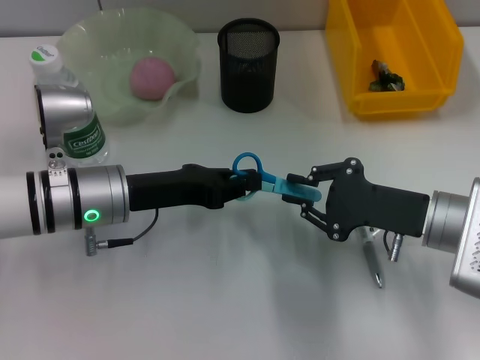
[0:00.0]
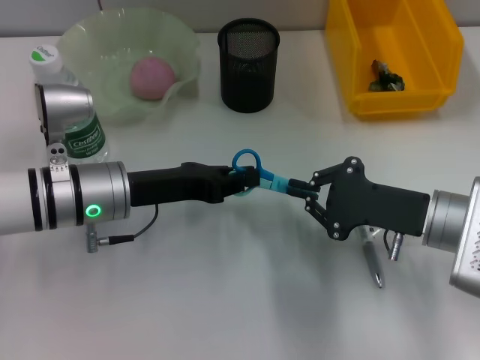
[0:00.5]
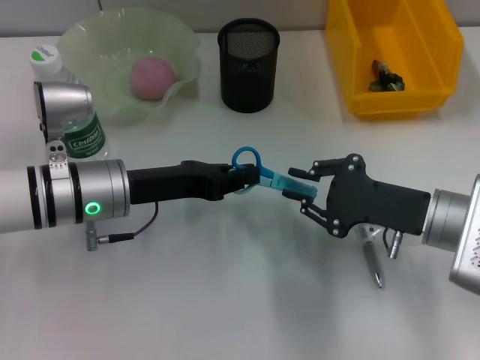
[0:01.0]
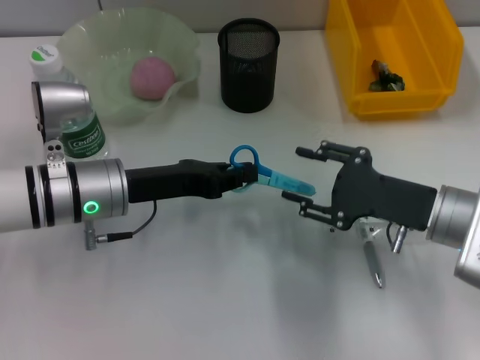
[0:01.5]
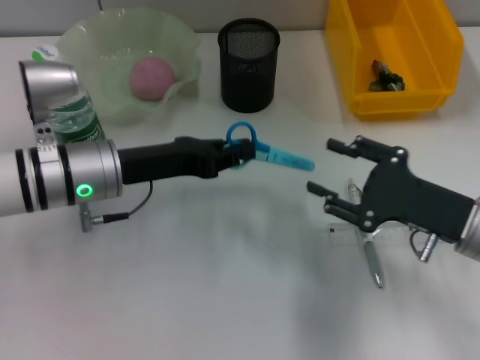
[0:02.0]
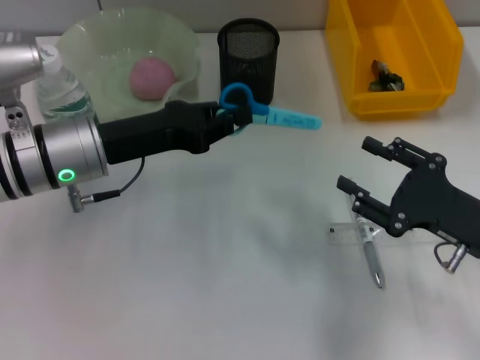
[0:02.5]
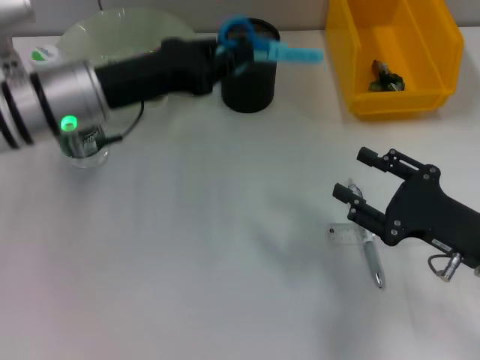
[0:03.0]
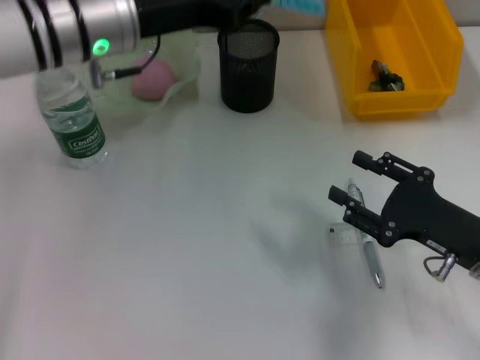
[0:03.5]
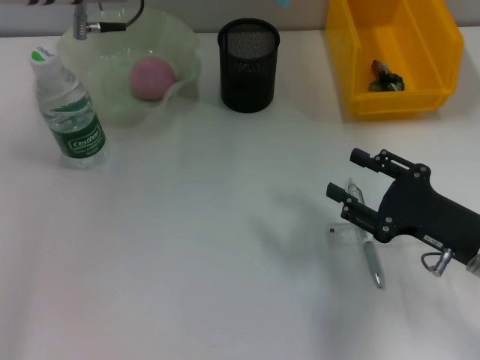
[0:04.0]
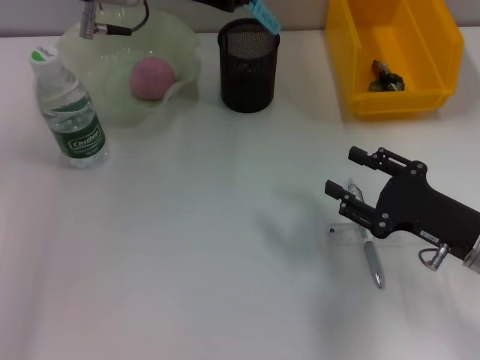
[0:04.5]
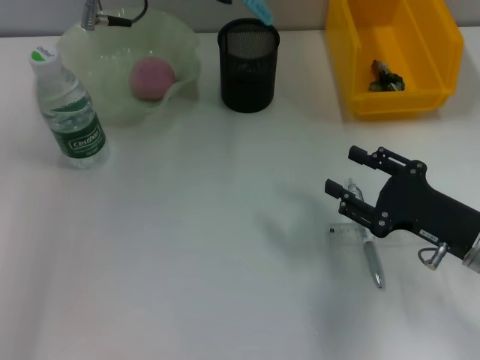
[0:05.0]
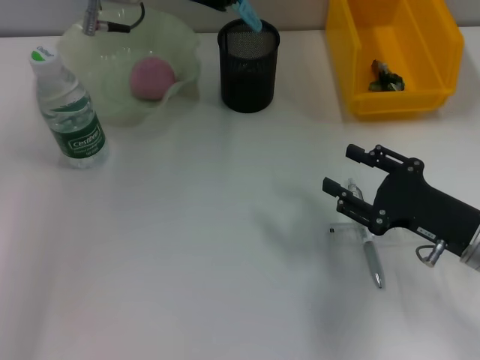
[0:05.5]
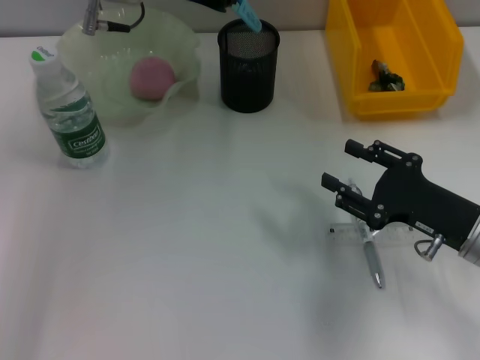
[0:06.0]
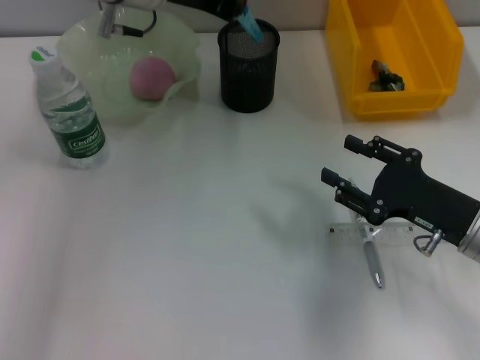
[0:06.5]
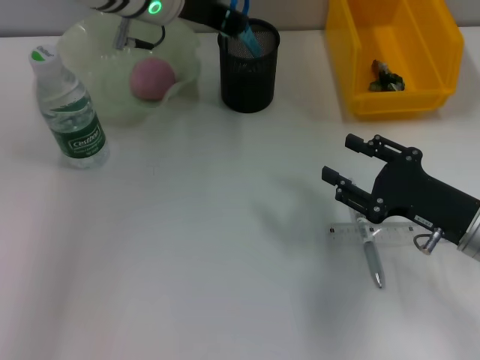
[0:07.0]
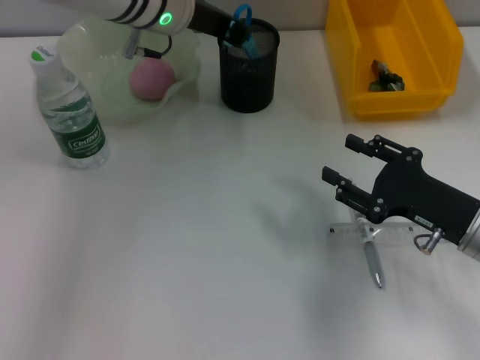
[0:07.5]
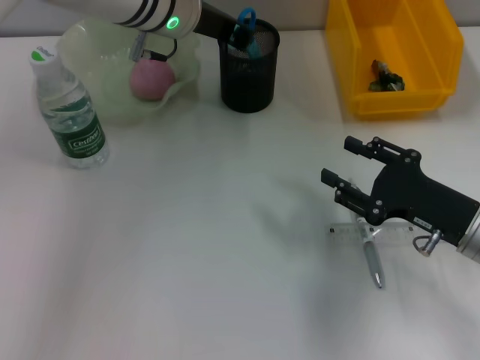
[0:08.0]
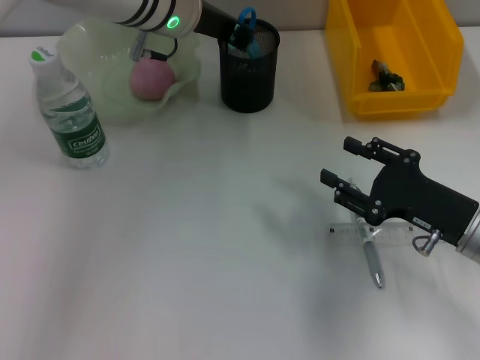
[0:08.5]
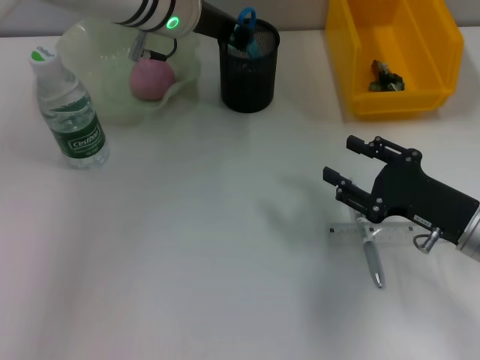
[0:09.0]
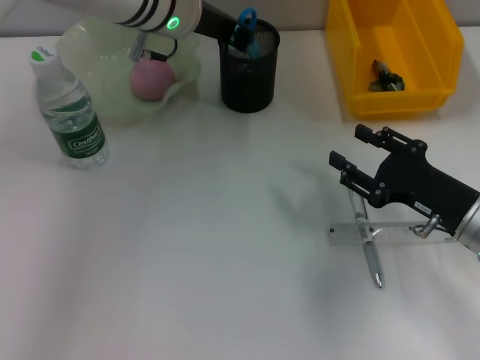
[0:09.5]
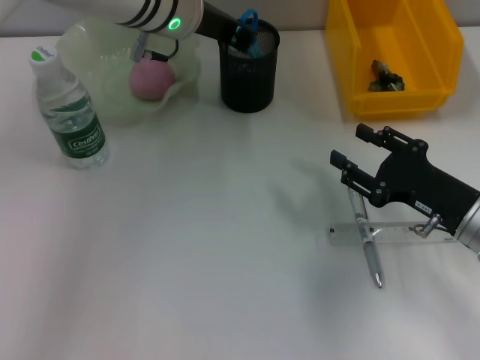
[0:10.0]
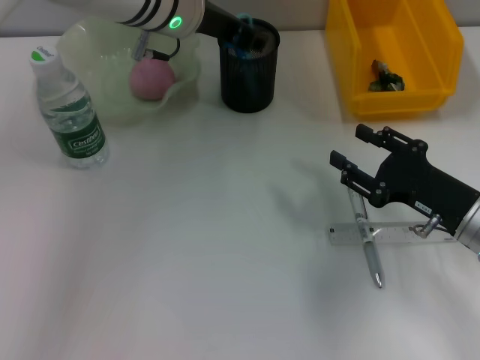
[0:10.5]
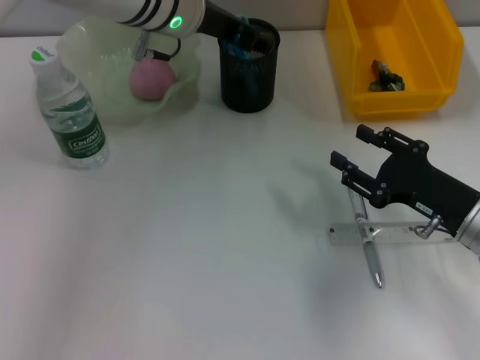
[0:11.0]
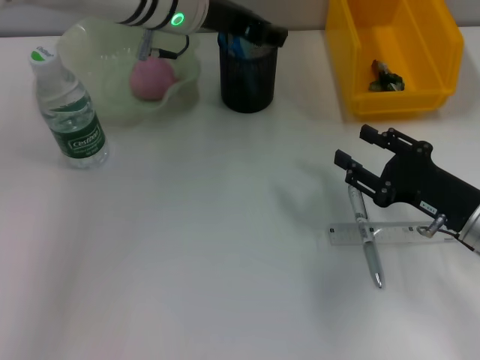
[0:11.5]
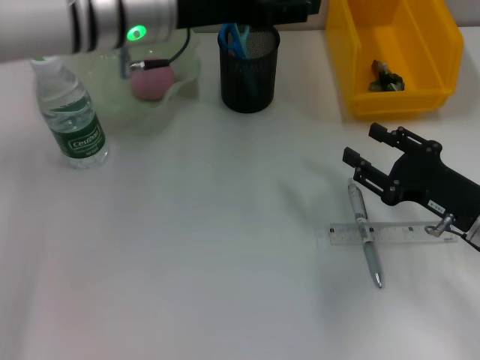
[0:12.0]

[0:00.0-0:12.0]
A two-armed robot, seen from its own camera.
Step, 1.0 to 11.0 s: Place the blue scissors into the pen holder with the left hand.
0.0 to 2.0 s: The right gripper opens up.
2.0 to 4.0 s: The left gripper shifts roughly 20 cm upward and forward.
4.0 to 6.0 s: The grippers stay close to where they were, moving slightly.
6.0 to 8.0 s: The left gripper changes place by some 5 cm.
8.0 to 10.0 s: The grippers make only small movements.
10.0 to 12.0 s: The left gripper ends up approximately 5 cm from where it was, and opens up.

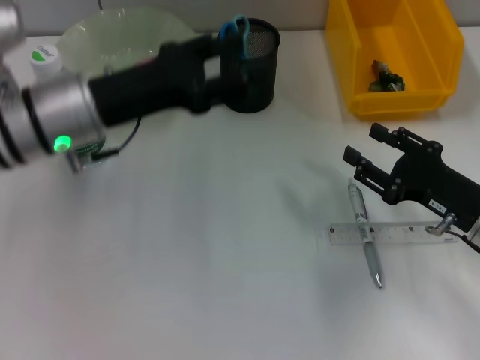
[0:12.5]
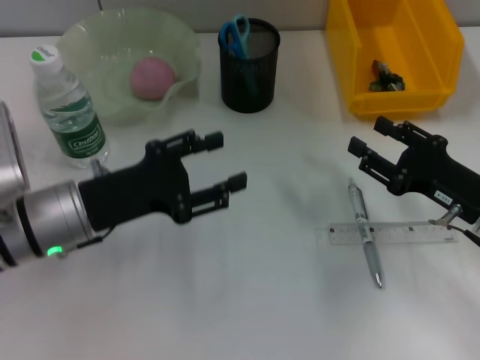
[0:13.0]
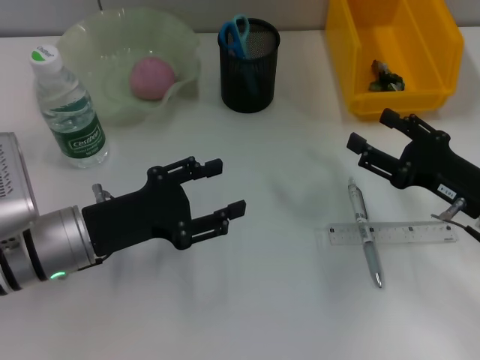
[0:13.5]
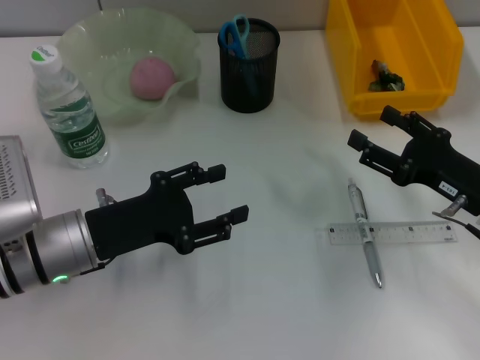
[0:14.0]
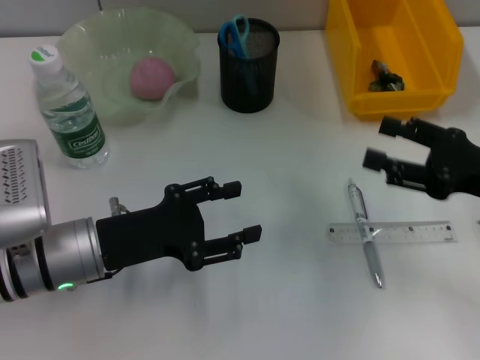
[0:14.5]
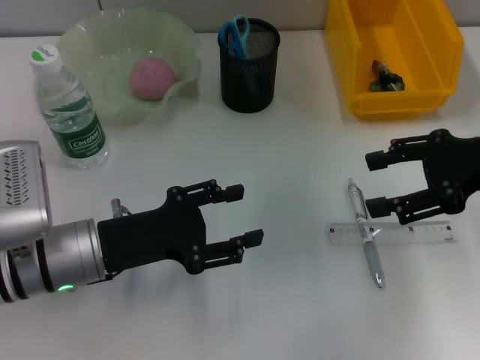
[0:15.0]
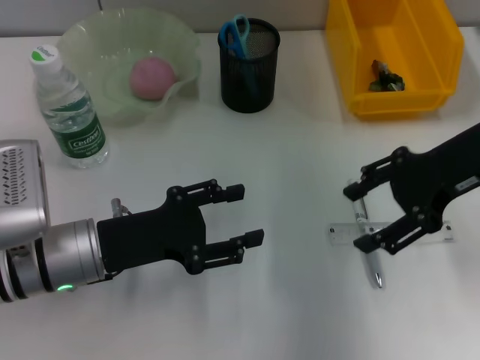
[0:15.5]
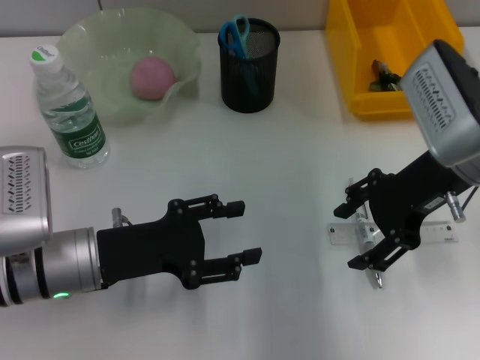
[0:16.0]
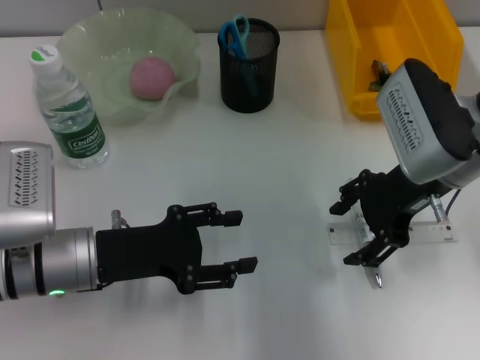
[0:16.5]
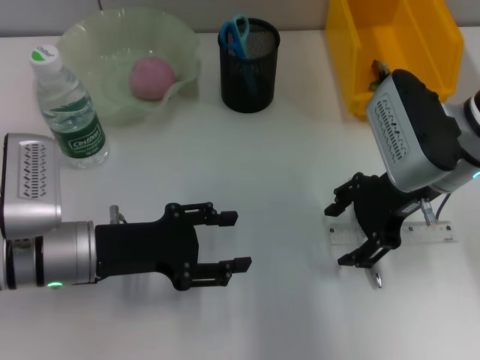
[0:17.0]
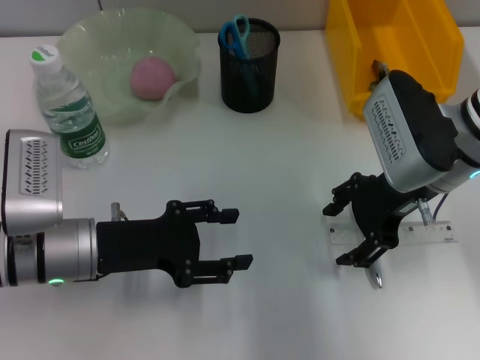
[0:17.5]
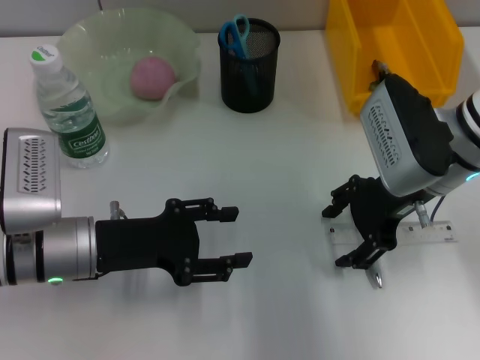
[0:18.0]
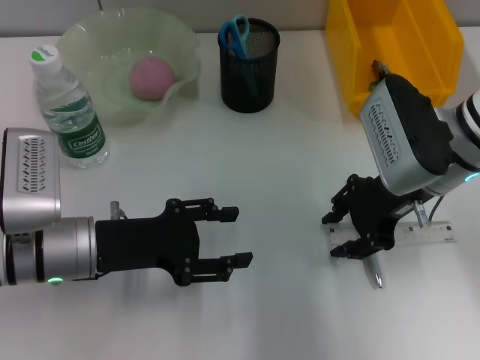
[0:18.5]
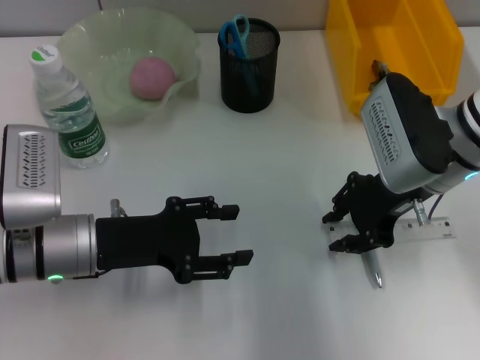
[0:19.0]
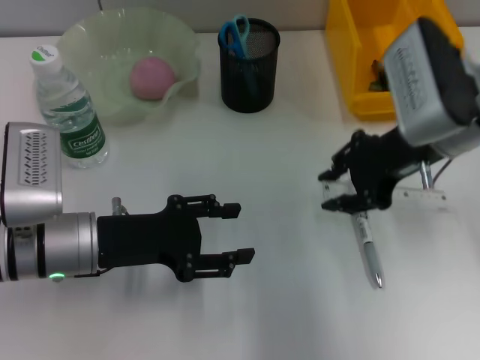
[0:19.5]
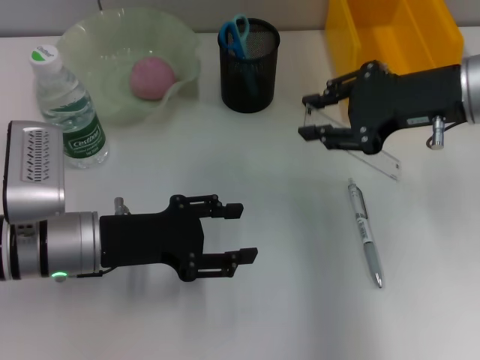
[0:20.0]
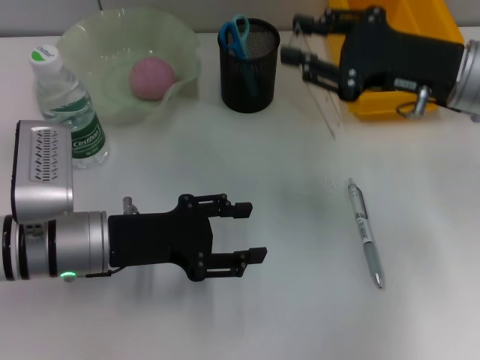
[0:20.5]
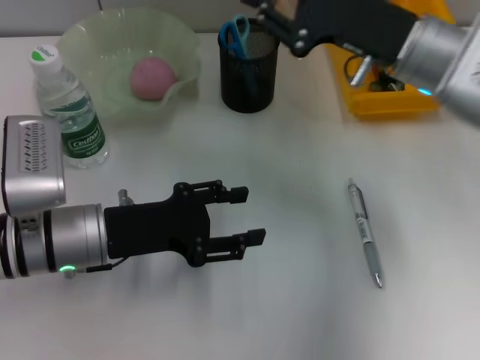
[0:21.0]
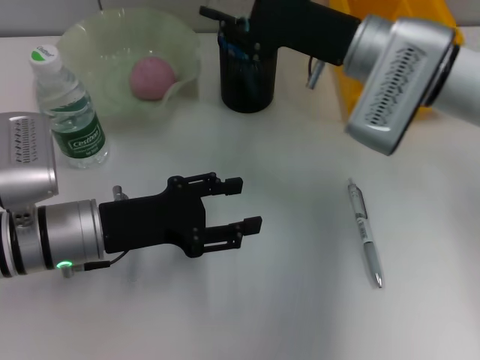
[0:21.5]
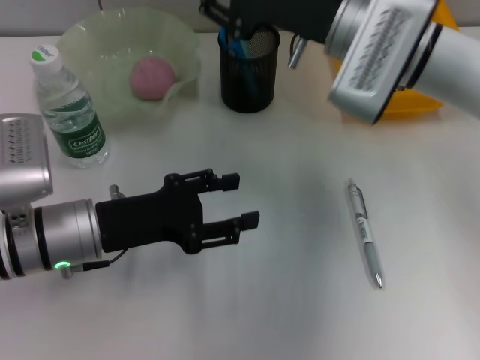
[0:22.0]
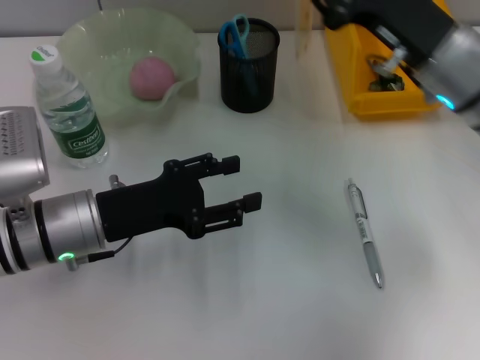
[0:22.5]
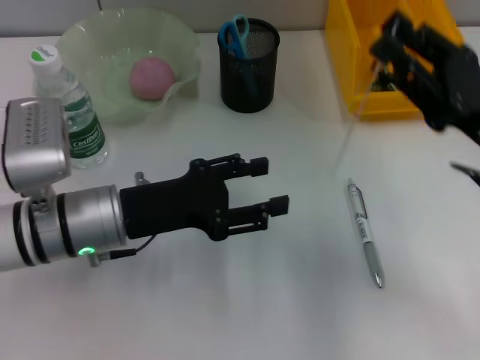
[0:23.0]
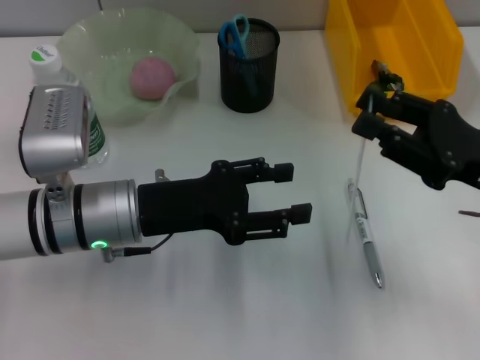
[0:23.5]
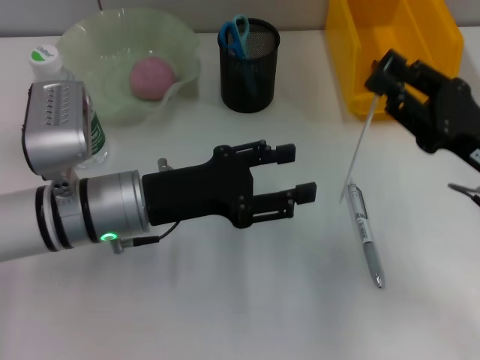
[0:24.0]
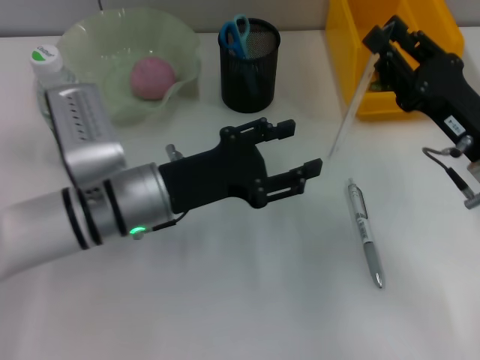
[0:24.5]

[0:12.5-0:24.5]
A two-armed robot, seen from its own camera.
Step, 12.5 to 18.5 s: Grab the ruler with the right hand.
12.5 to 14.5 s: The right gripper goes roughly 5 cm upward, while the left gripper shifts roughly 10 cm downward and backward.
14.5 to 16.5 s: The right gripper goes approximately 15 cm to the left and forward.
16.5 to 18.5 s: The grippers stay close to where they were, moving slightly.
18.5 to 20.5 s: The right gripper ends up about 5 cm from where it was.
20.5 to 22.5 s: The right gripper reaches approximately 10 cm to the left, then returns.
22.5 to 24.5 s: The right gripper heads backward and downward, covering some 10 cm. Meanwhile the left gripper heads to the right, covering approximately 5 cm.

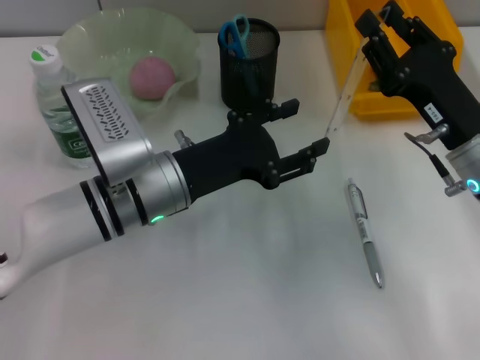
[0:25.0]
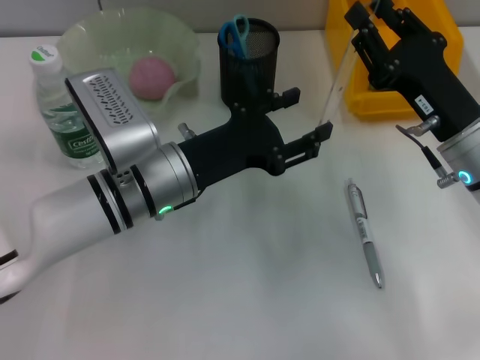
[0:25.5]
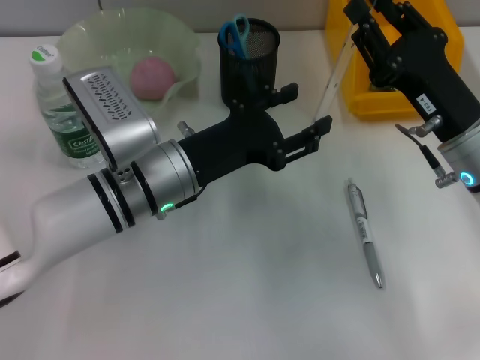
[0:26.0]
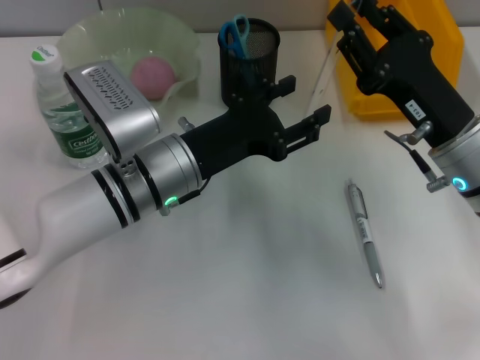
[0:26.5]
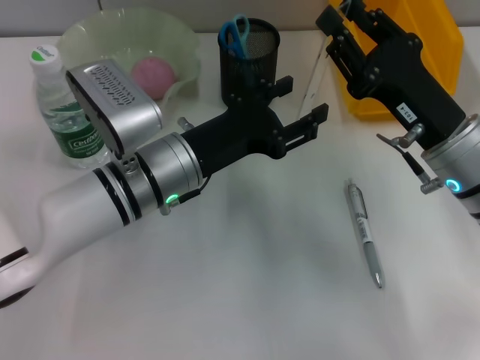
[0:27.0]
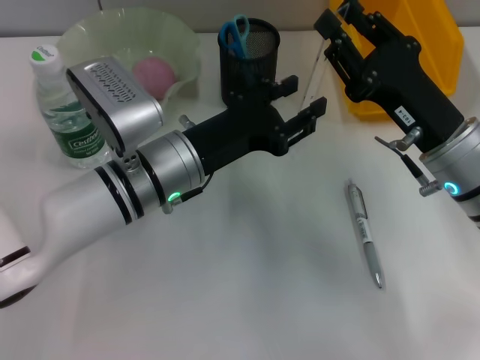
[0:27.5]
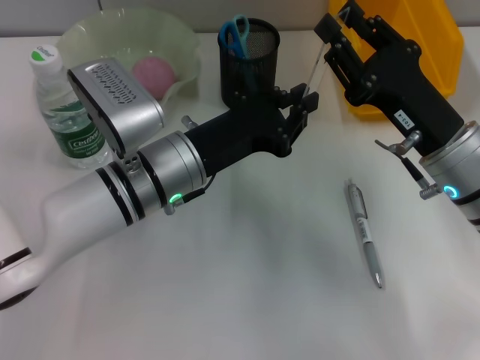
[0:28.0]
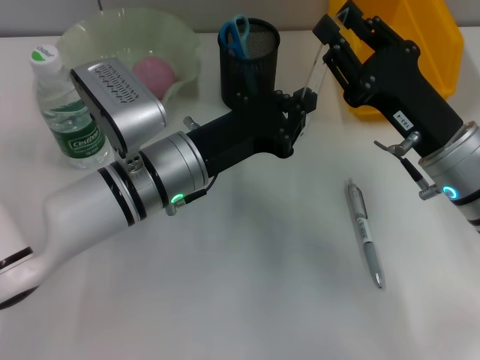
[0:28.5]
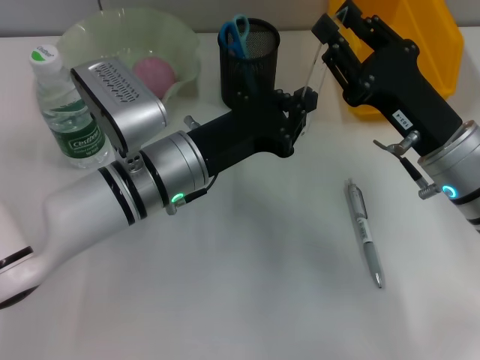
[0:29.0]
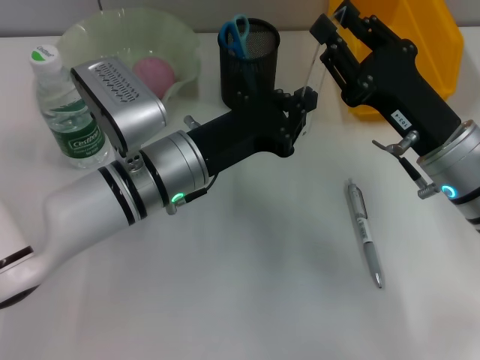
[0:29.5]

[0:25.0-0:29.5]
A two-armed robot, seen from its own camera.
25.0 to 27.0 s: The grippers stay close to where they were, moving slightly.
27.0 to 29.5 s: The left gripper closes up.
